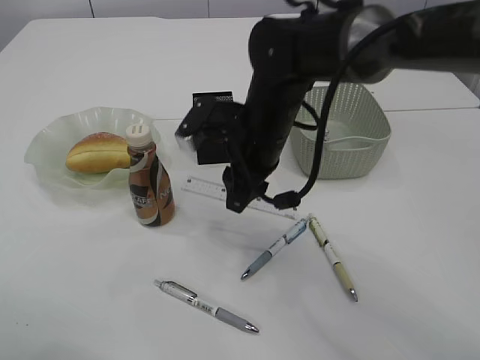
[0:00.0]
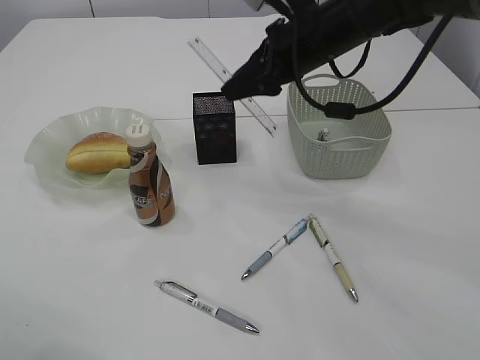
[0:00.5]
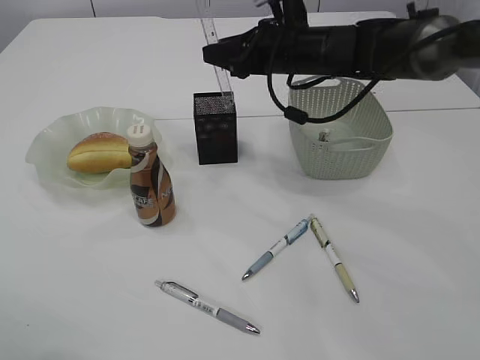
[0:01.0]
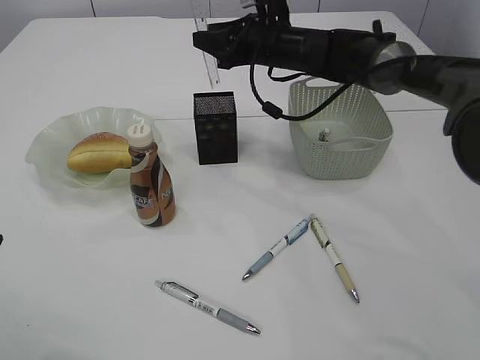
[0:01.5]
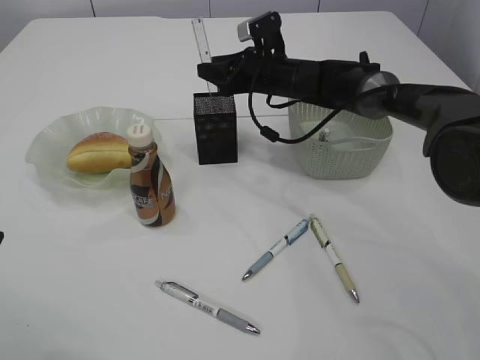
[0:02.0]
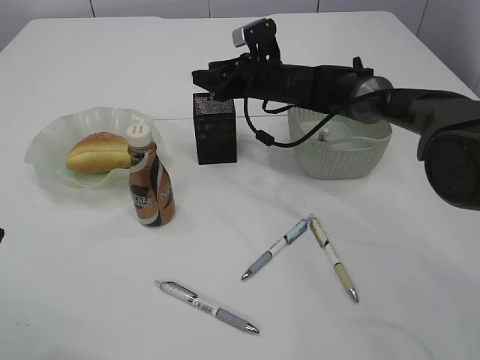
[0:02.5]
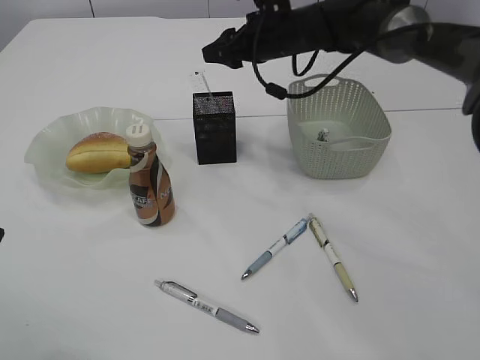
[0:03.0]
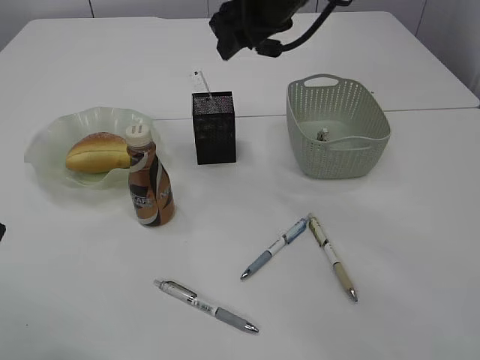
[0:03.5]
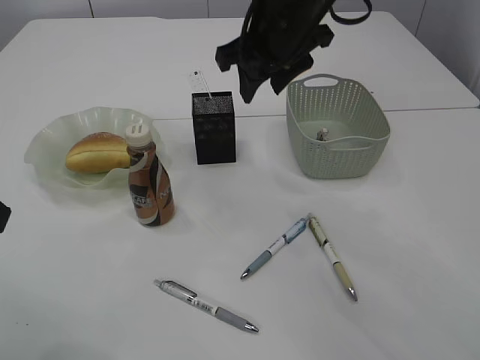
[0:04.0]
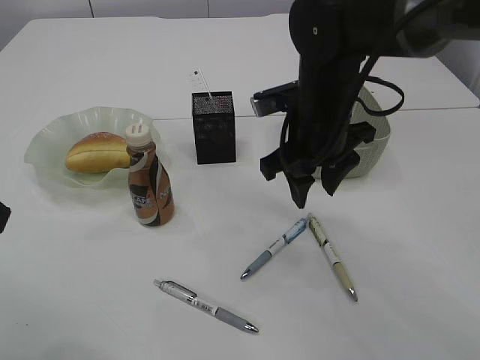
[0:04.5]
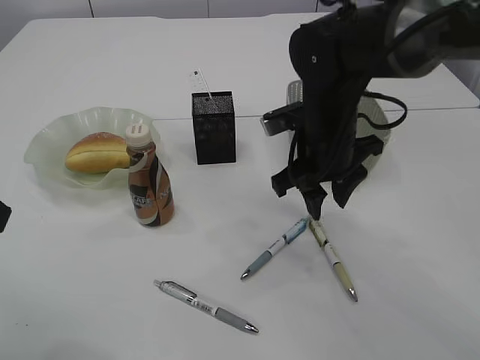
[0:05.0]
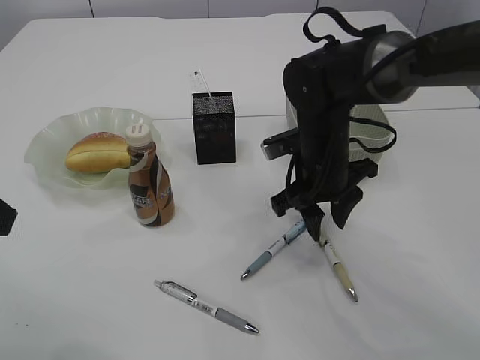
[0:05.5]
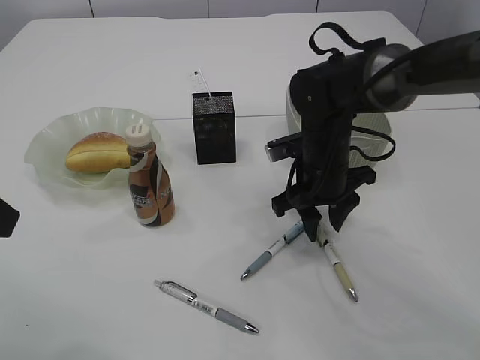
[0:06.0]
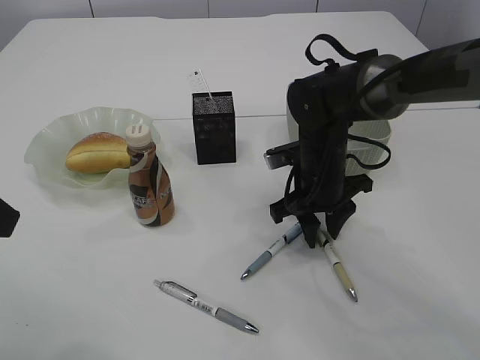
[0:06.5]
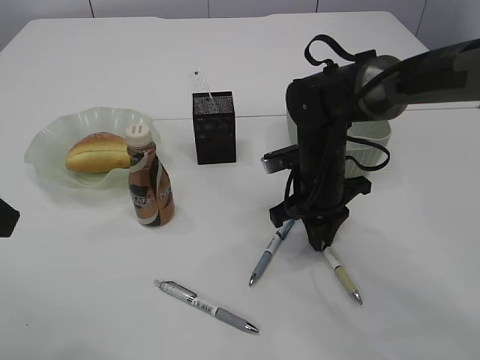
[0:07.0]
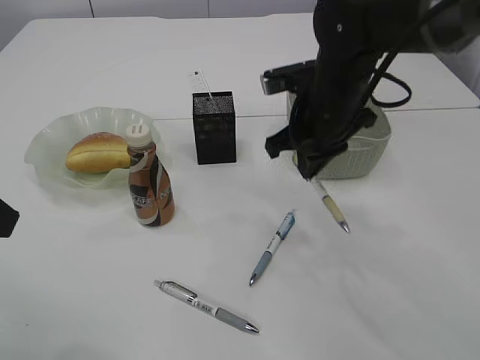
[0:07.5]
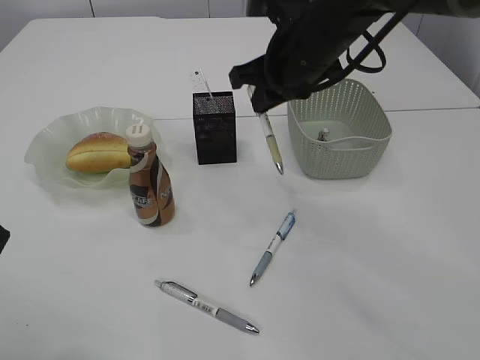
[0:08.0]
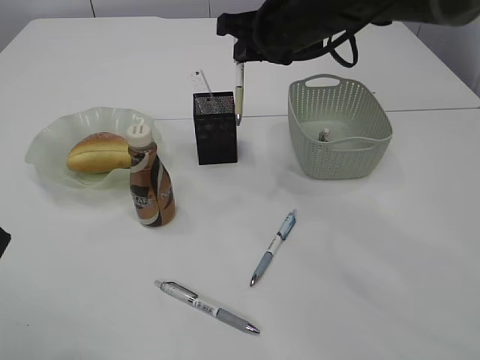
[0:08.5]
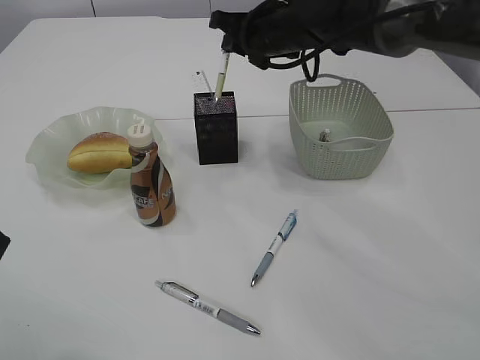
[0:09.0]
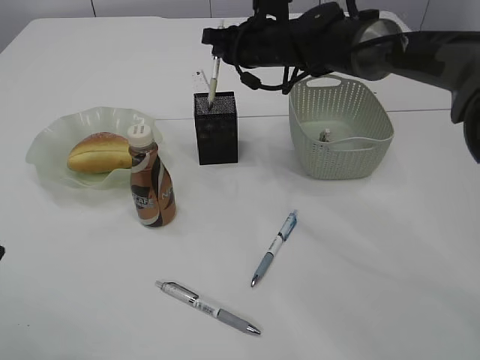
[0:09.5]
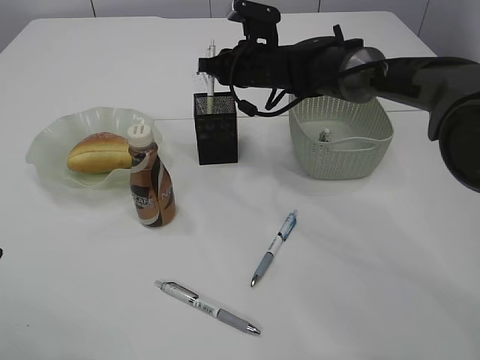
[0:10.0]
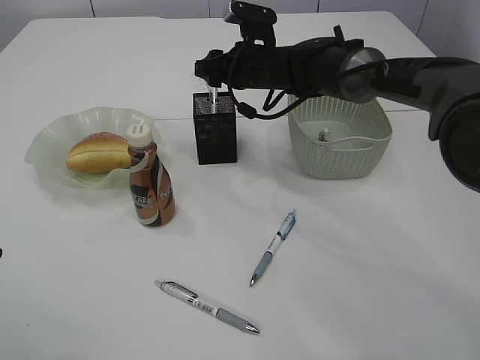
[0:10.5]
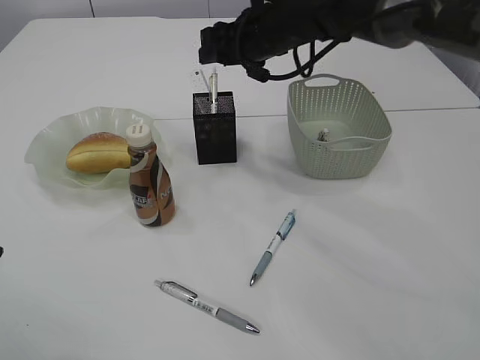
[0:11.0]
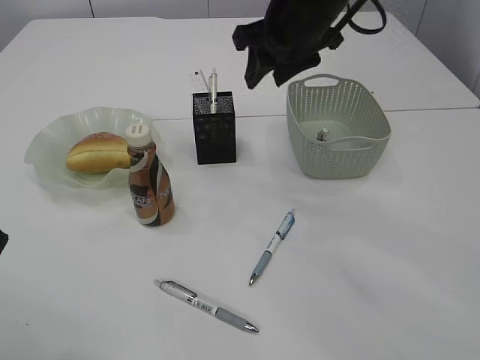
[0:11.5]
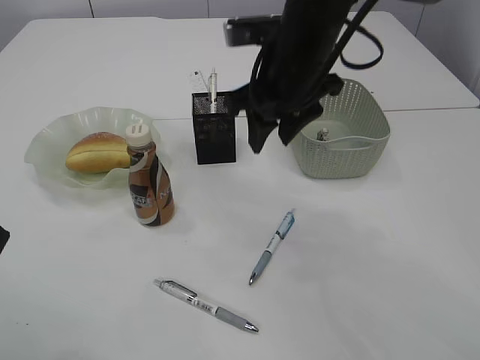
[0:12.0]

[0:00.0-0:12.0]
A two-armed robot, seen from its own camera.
Step, 0:00.5 to 0:03.0: Place the ruler into the pen holder.
Step, 0:03.5 to 0:07.5: Pick up the pen with right arm.
Step, 0:08.0 to 0:11.0: Place the pen into the pen holder.
0:00.0 to 0:02.0: The right gripper heads forward, covering approximately 15 cm.
0:02.0 to 0:04.0: The right gripper travels upward and backward by approximately 20 cm.
0:04.0 to 0:06.0: The right gripper travels downward by roughly 15 cm.
0:06.0 to 0:08.0: The right gripper moves upward, about 15 cm, and closes its fingers.
0:08.0 to 0:10.0: The right gripper travels forward and downward by about 15 cm.
0:10.0 to 0:12.0: The right gripper moves backward and upward, some 15 cm, and opens up.

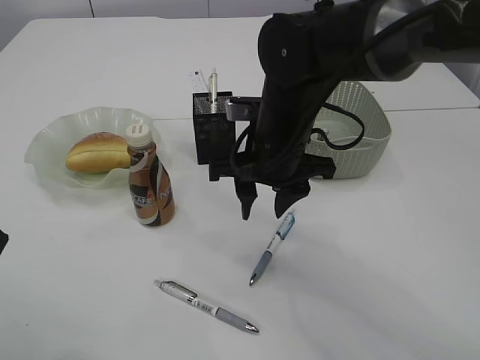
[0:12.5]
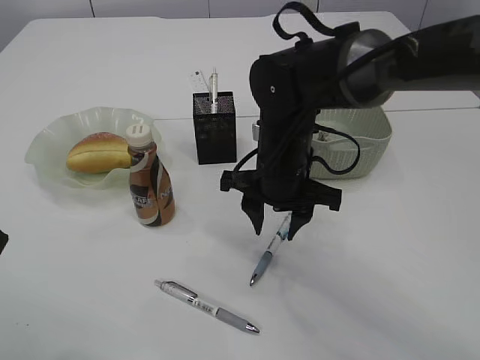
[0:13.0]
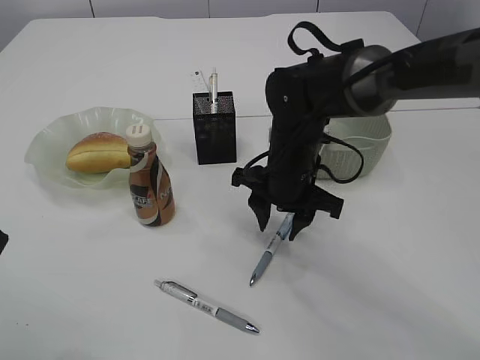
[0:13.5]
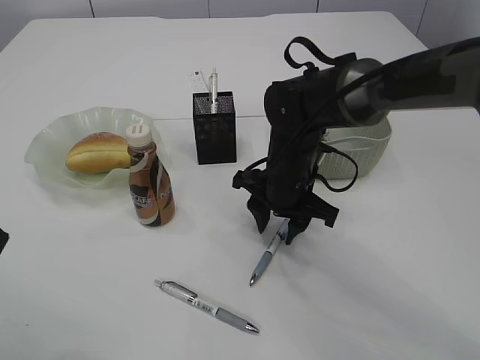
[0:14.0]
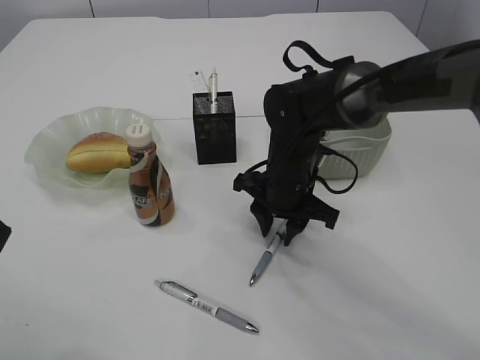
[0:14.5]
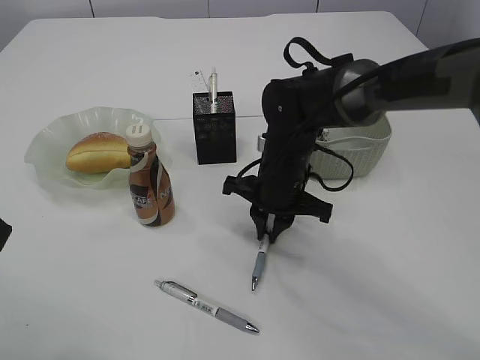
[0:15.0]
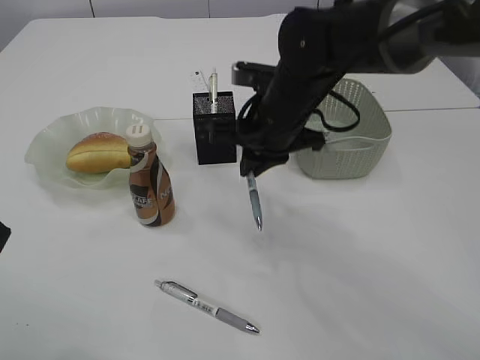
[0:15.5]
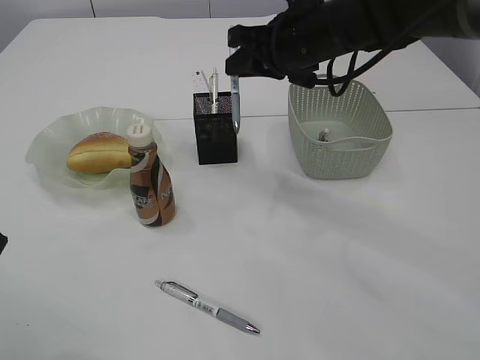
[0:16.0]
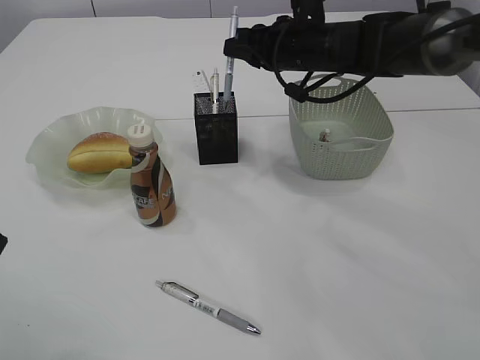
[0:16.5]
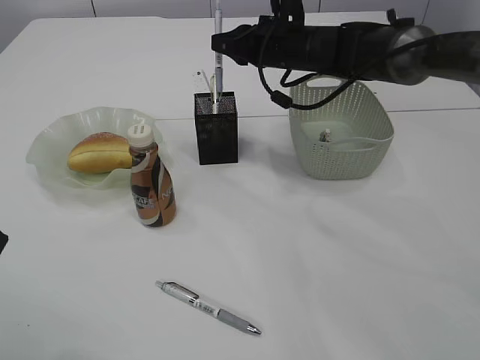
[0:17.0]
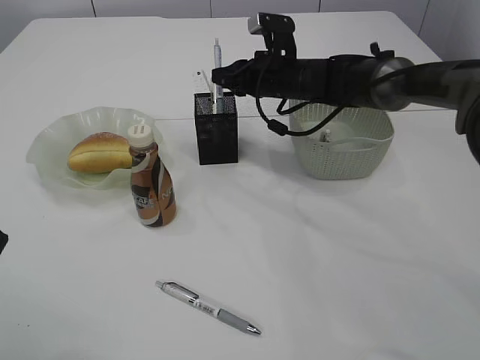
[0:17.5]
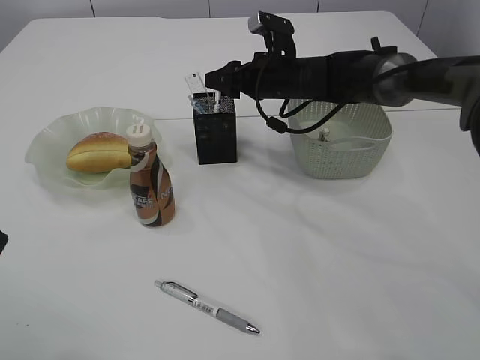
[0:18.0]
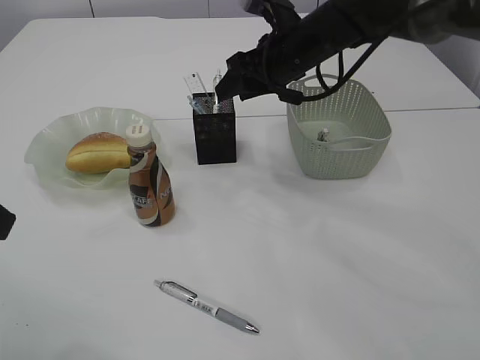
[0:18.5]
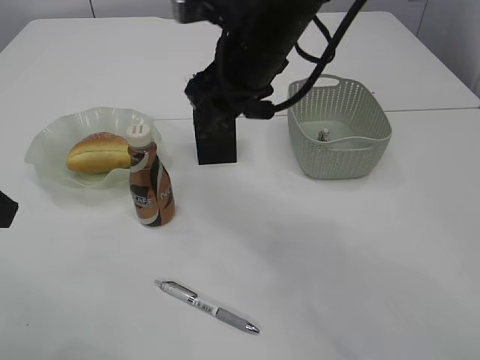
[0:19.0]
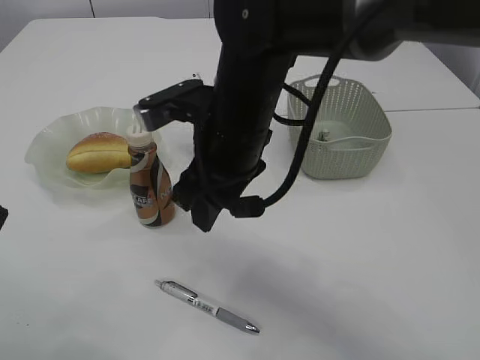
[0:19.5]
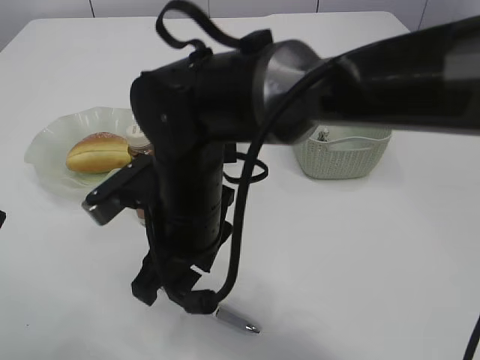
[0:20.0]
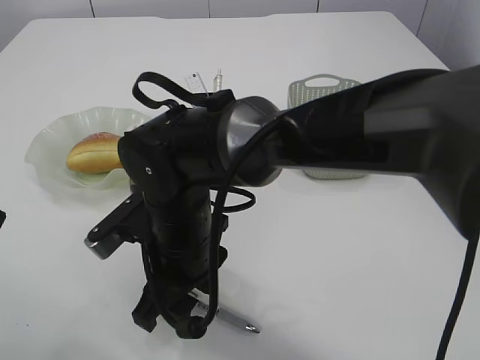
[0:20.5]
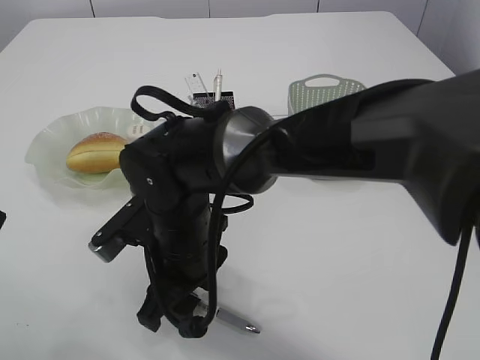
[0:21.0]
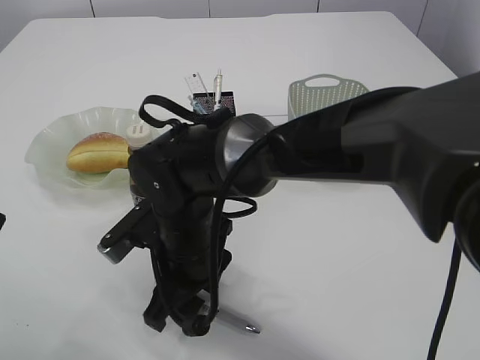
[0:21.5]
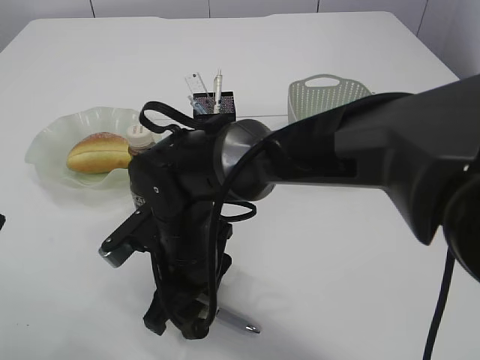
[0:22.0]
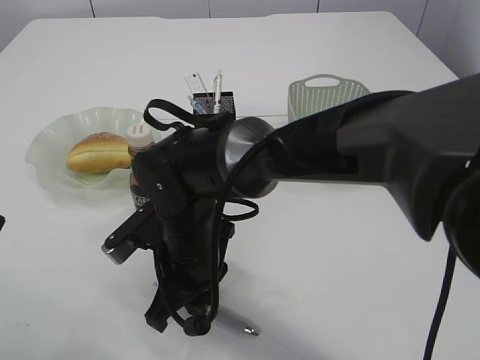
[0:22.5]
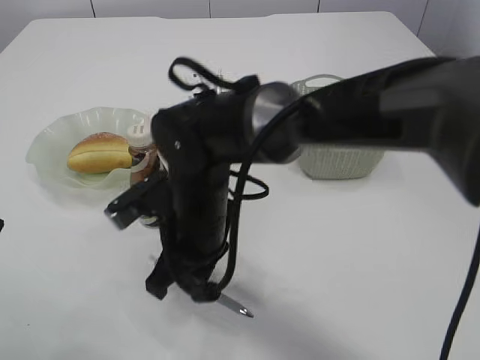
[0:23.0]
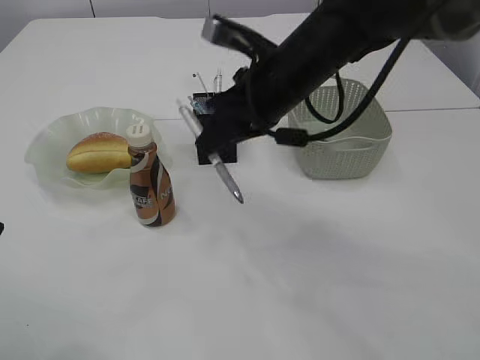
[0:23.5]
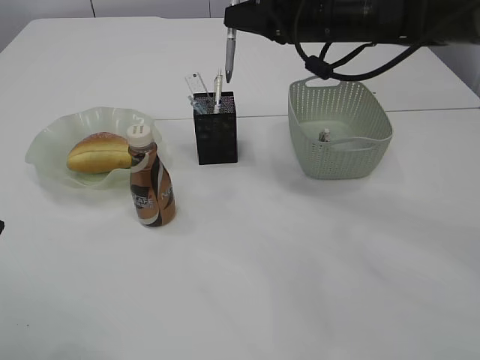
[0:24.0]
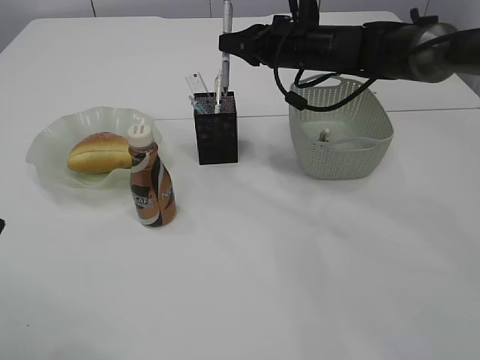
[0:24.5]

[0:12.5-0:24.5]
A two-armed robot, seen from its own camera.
Step, 0:12.5 to 0:15.0: Pick up the pen with right arm.
Step, 0:15.5 to 0:18.5: Place the pen into the pen holder.
Step, 0:19.0 to 0:23.0: Pick up the pen with right arm.
0:12.5 to 0:14.5: The right gripper heads downward, covering roughly 10 cm.
0:14.5 to 0:16.5: The right gripper shifts approximately 15 cm upward and forward, and closes.
0:16.5 to 0:18.5: The right gripper opens up.
0:18.5 to 0:20.5: The right gripper shifts about 25 cm backward, to the left and downward.
0:20.5 to 0:22.5: The right gripper closes its fingers.
0:22.5 to 0:24.5: The right gripper moves forward, to the right and upward, approximately 30 cm.

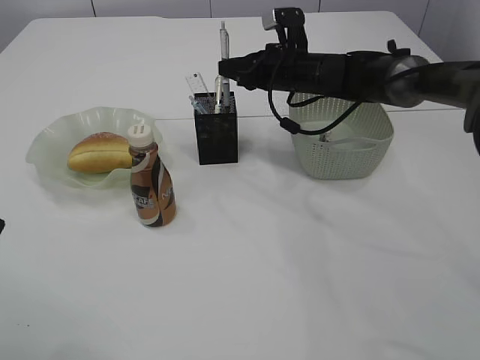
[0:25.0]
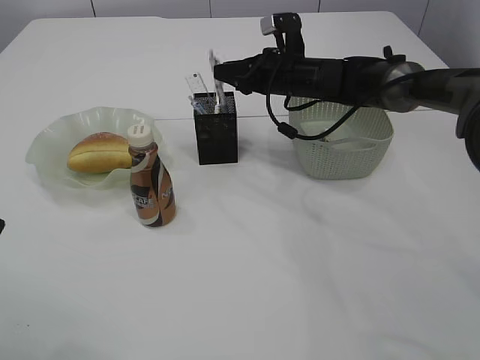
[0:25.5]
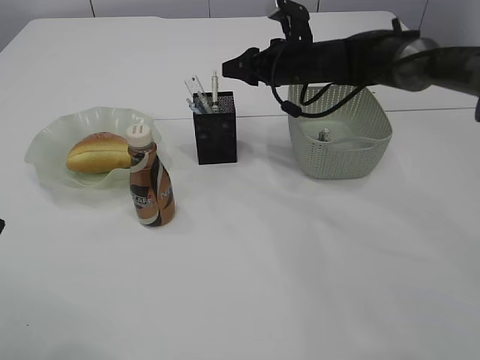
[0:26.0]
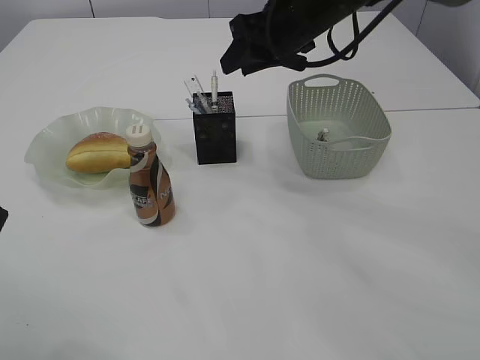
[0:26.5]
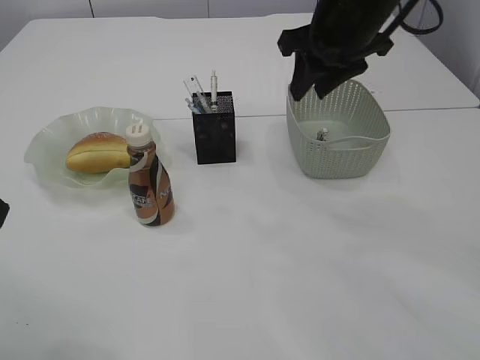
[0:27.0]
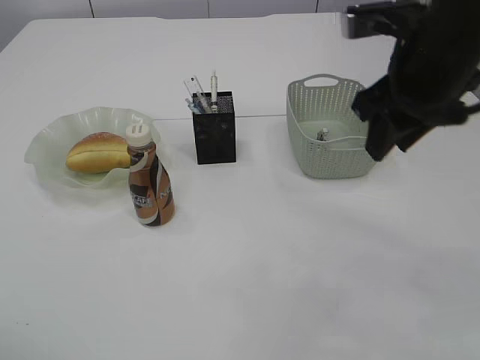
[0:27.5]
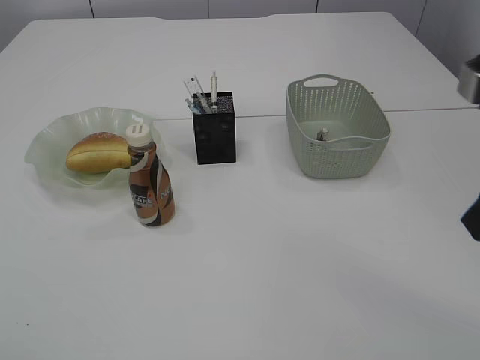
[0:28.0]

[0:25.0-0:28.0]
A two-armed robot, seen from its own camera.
Step, 0:25.0 to 0:27.0: Place the pen into the pen holder.
0:25.0 to 0:26.5: The right gripper moves upward and backward, approximately 15 cm, and opens.
0:26.5 to 0:28.0: The right gripper moves backward and to the right, about 30 cm. Meanwhile the left gripper moves backward and upward, roughly 15 cm.
